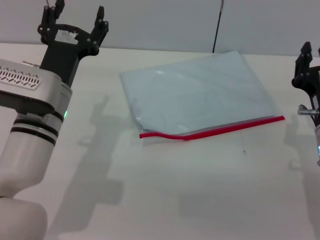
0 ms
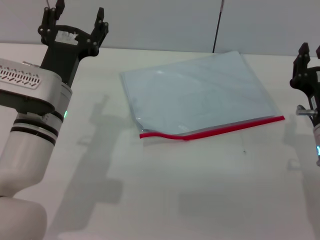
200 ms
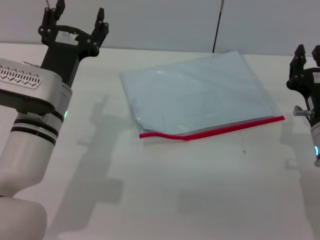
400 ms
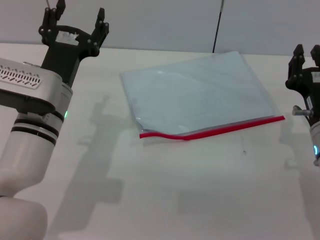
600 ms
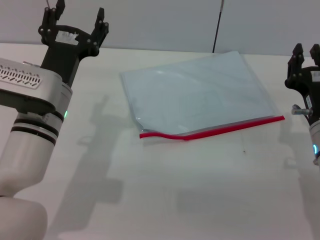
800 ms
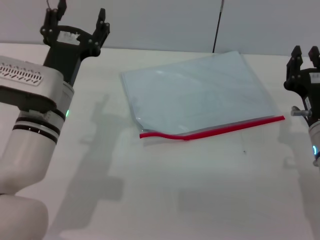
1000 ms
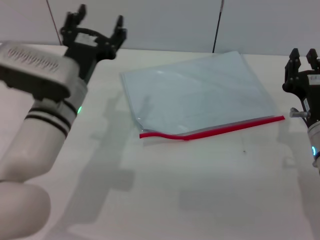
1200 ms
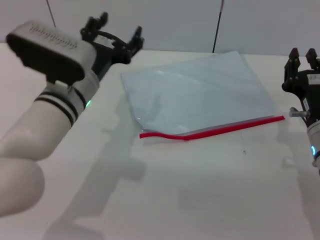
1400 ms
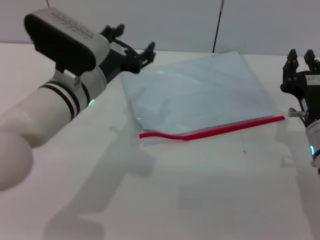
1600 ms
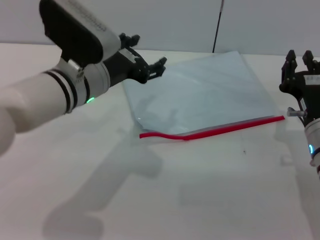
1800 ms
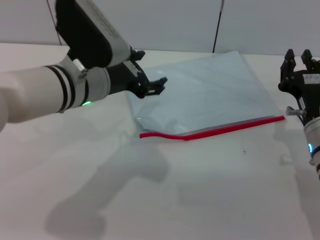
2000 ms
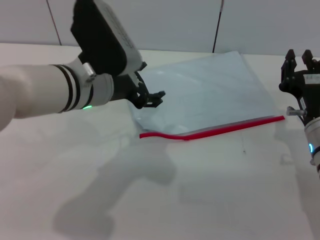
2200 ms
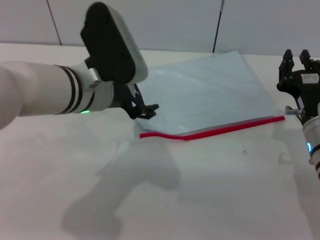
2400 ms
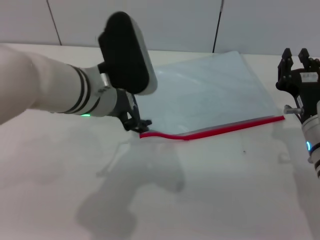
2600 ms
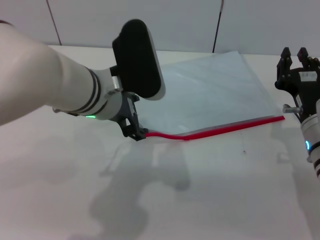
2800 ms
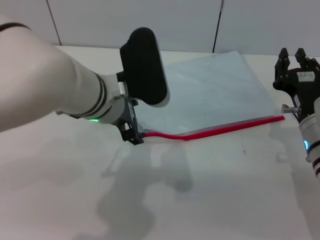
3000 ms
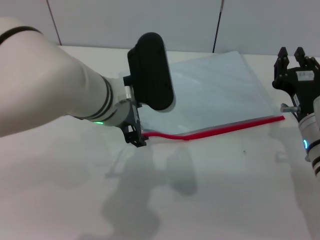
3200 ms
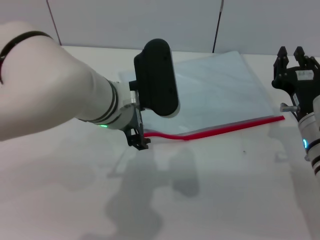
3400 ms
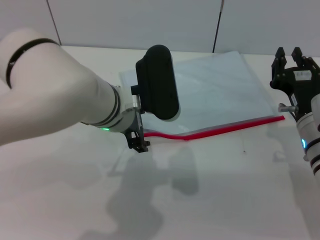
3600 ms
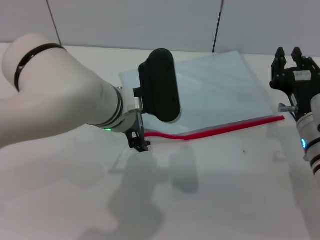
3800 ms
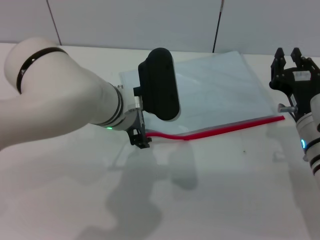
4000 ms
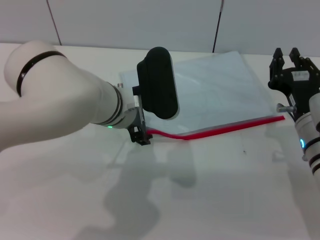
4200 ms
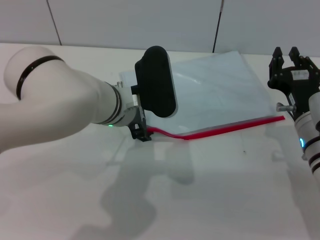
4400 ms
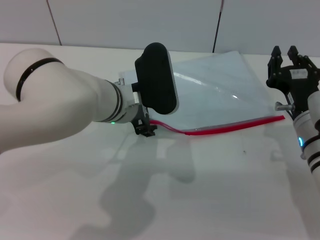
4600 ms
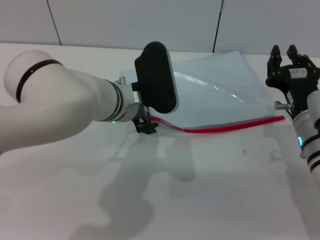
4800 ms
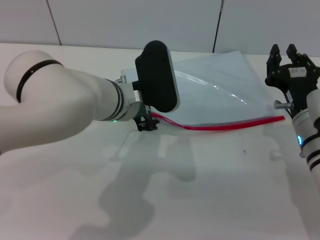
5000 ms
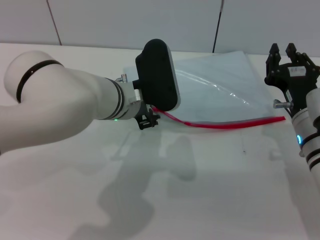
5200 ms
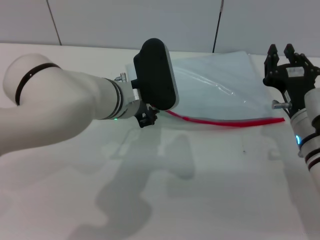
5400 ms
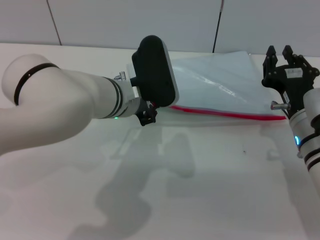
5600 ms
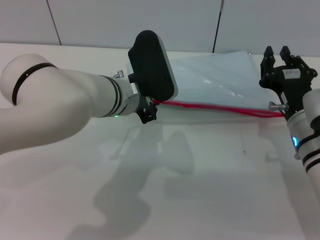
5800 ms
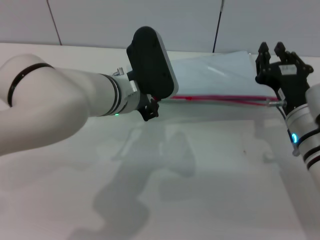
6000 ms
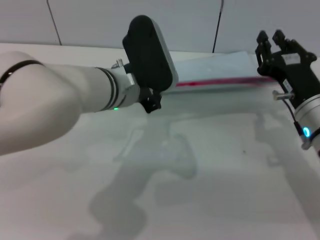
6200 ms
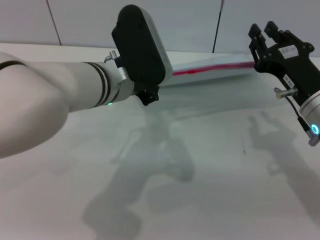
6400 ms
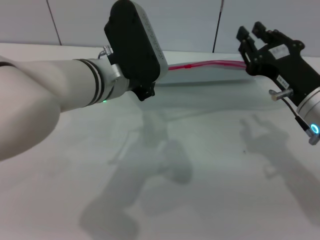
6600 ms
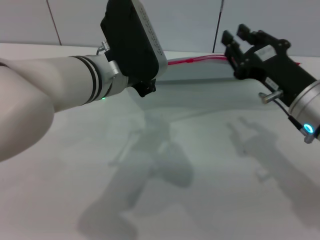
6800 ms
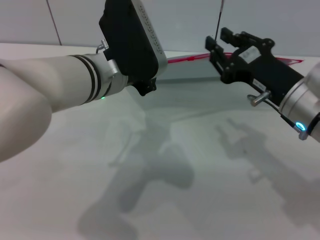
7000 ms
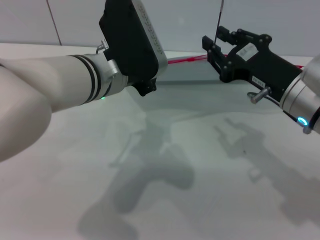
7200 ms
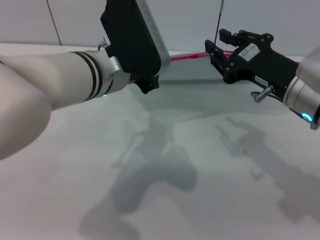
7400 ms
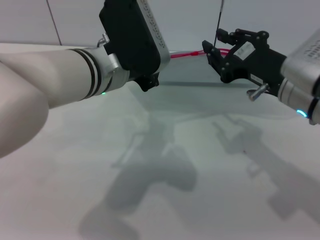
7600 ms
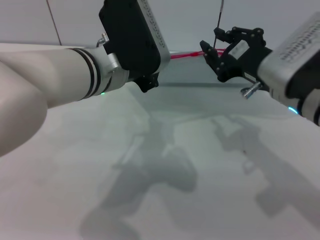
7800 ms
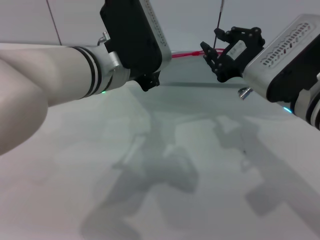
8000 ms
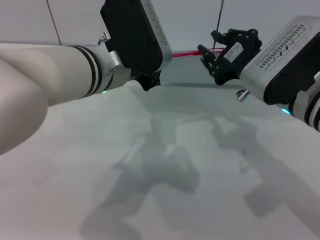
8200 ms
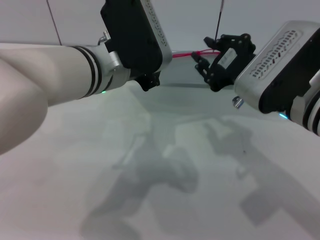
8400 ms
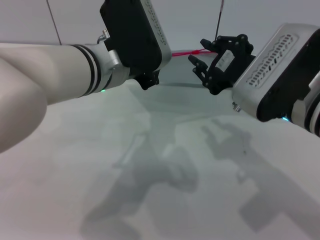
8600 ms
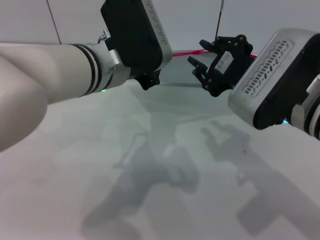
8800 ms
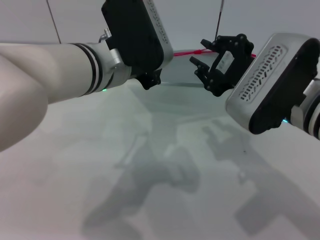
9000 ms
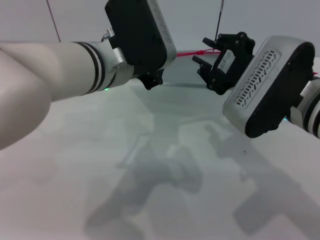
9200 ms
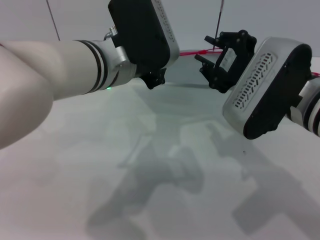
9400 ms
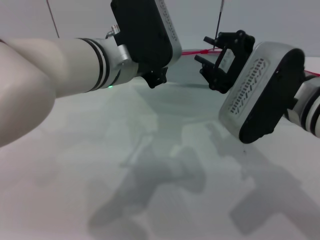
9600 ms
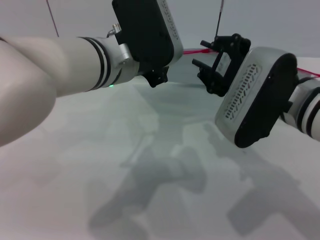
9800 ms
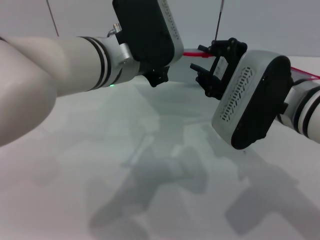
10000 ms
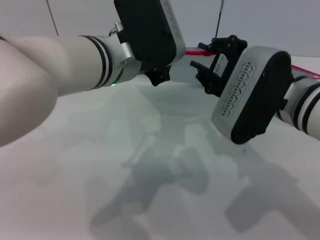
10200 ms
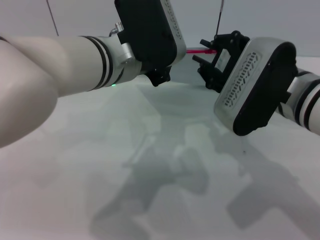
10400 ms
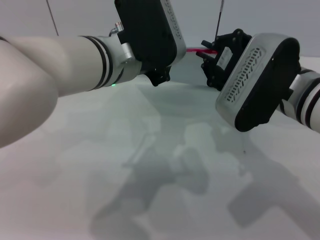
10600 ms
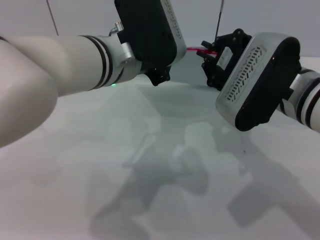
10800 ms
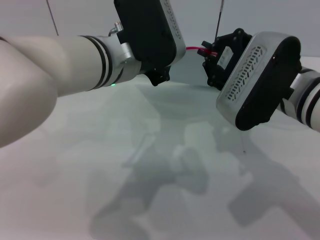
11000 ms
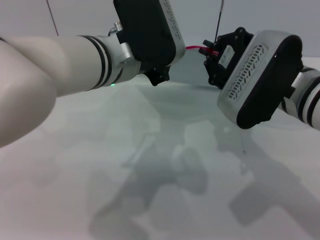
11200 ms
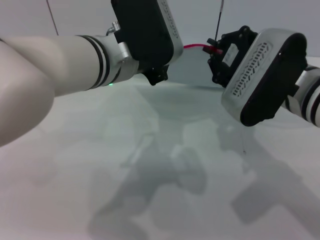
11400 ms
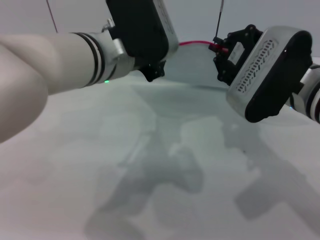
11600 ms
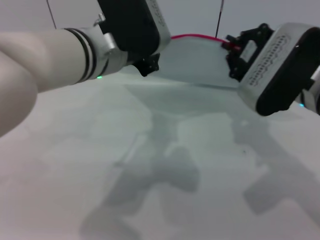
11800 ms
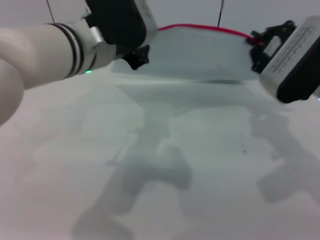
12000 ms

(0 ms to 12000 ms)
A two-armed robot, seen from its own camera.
Step, 0 ms - 7000 ms: Pick up the transparent plastic bag with the left gripper.
0 ms - 1600 ms: The left gripper ends up roughly 5 cm from where it was.
3000 ms - 4400 ms: The grippers stay close to where they were, moving slightly.
4400 ms - 6000 ms: The left gripper closes.
6000 ms - 7600 ms: The two grippers go about 10 cm upward.
9000 ms - 10400 ms: The grippers make only small movements.
10400 ms - 12000 ms: The right gripper moves to the right, some 5 cm, and closes up.

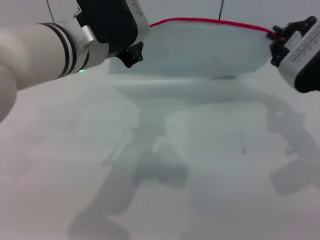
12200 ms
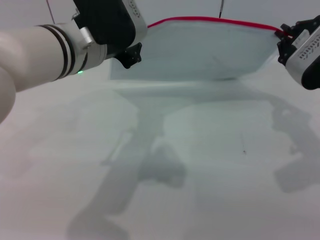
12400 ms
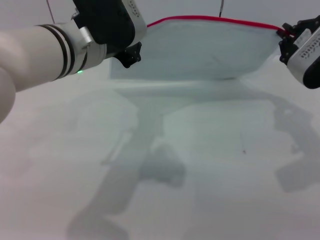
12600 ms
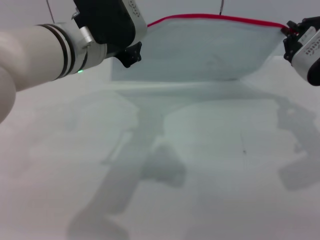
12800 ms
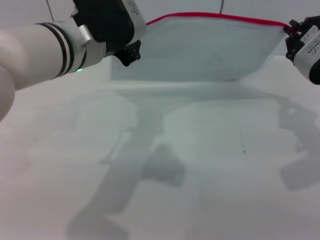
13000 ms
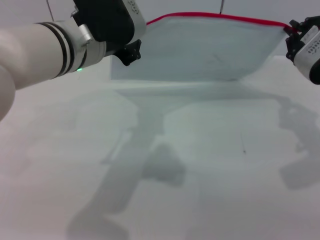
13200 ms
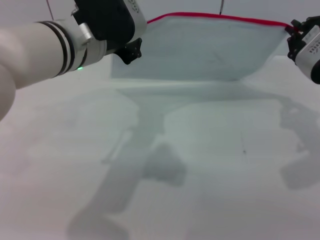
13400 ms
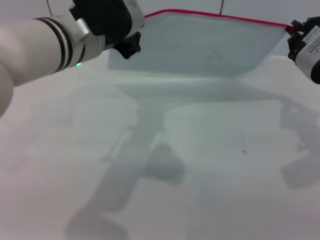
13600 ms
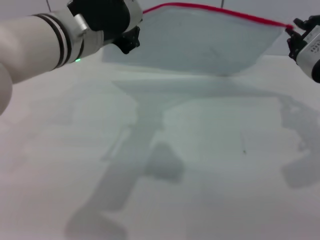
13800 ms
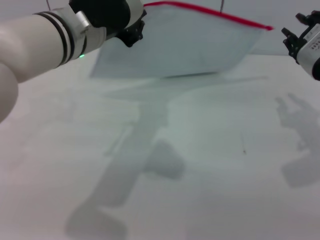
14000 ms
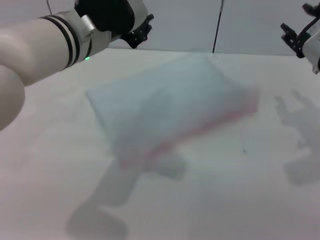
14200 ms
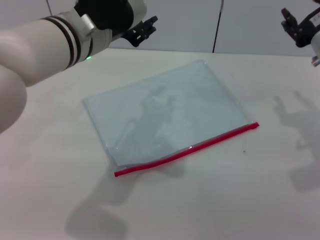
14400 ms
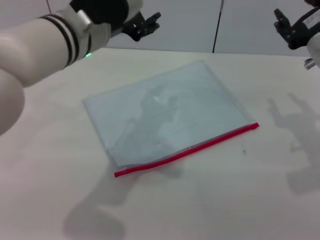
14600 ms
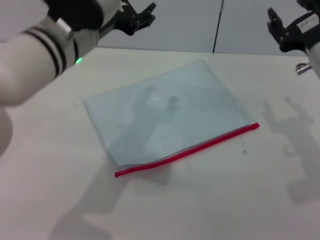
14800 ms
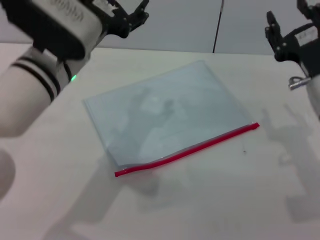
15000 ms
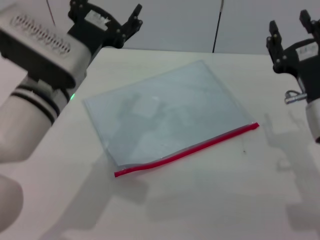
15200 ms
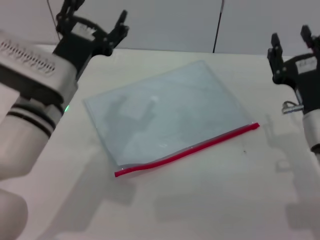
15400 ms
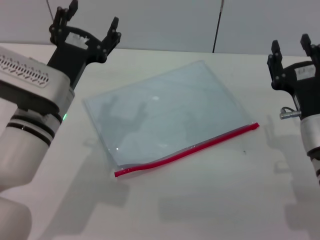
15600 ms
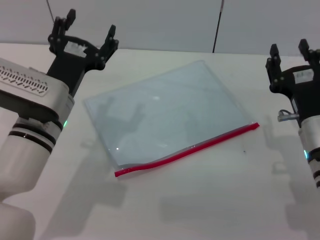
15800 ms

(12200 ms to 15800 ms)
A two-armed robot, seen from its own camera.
Step, 13800 ms - 14600 ms: Place the transparent plastic bag.
12200 ms - 14000 ms: The grippers make only small movements.
14000 ms - 15800 ms: The right gripper shifts approximately 15 cm downward and backward, and opens. Meanwhile the left gripper moves downward, roughly 15 cm, and opens its fingers.
